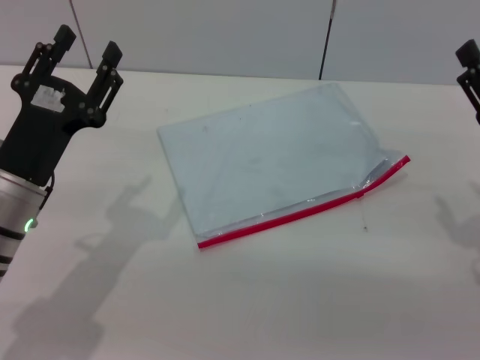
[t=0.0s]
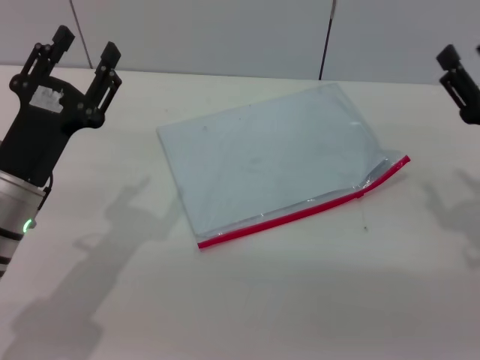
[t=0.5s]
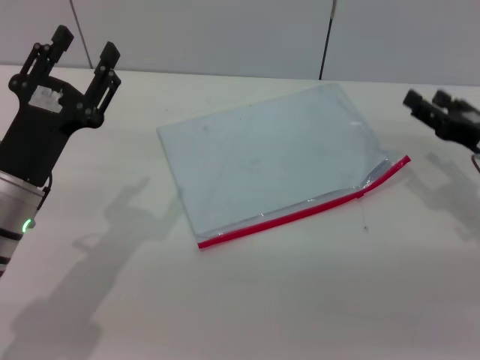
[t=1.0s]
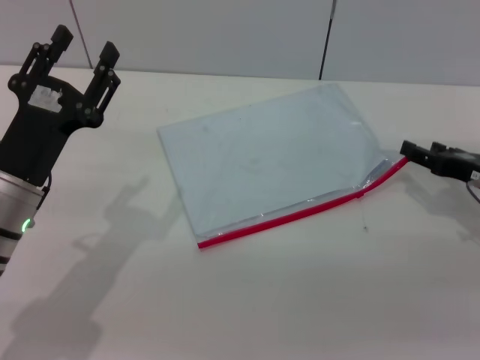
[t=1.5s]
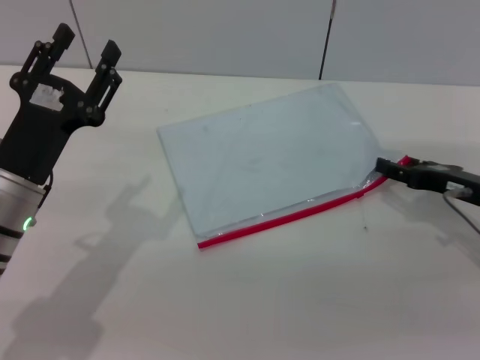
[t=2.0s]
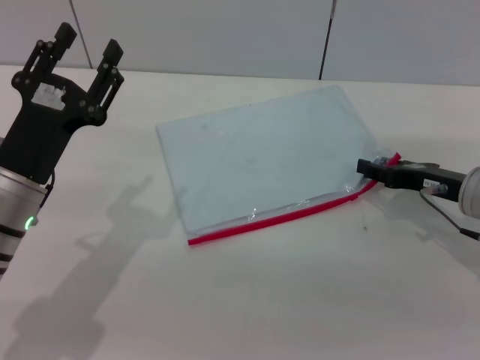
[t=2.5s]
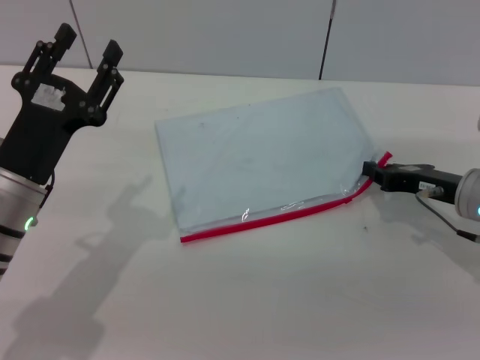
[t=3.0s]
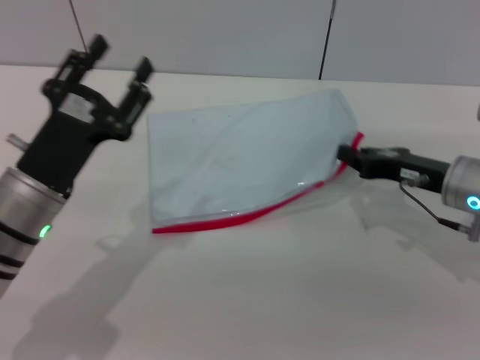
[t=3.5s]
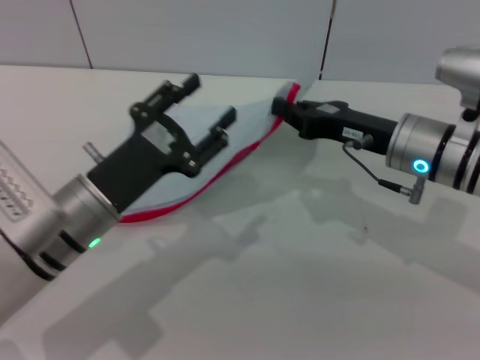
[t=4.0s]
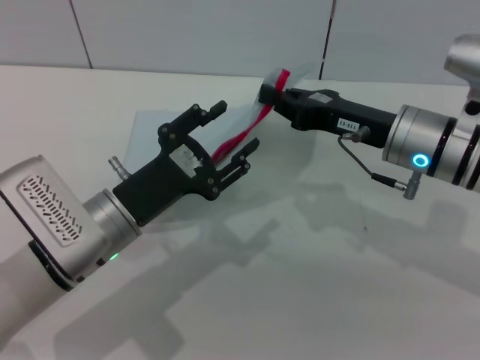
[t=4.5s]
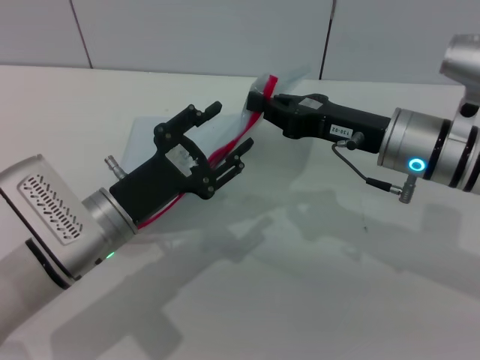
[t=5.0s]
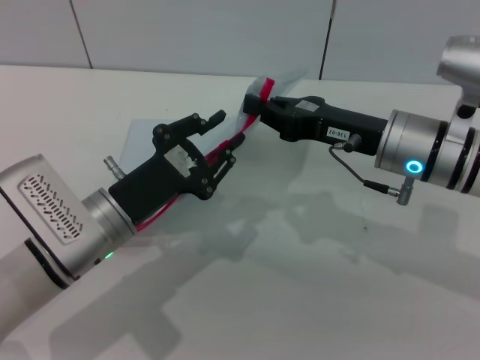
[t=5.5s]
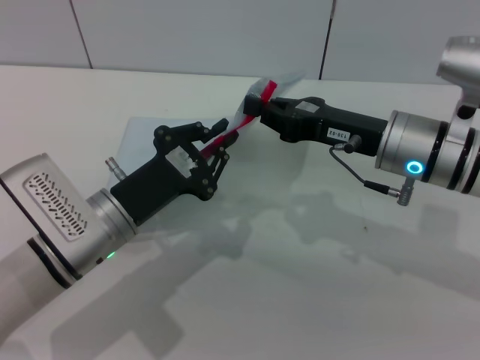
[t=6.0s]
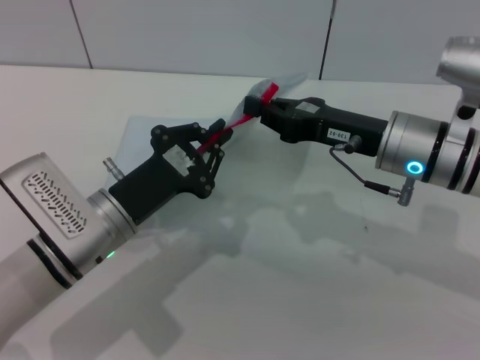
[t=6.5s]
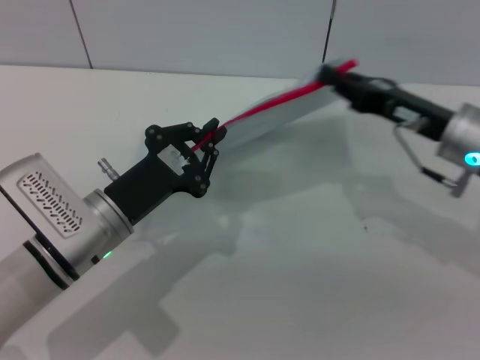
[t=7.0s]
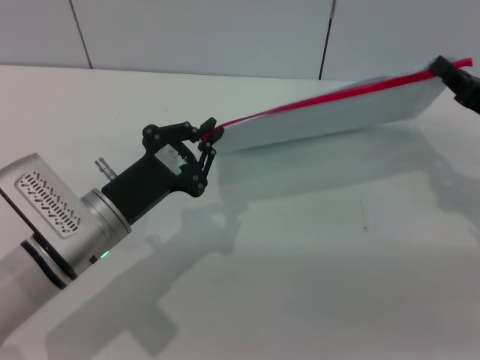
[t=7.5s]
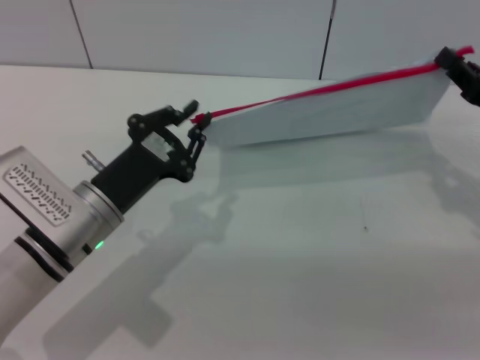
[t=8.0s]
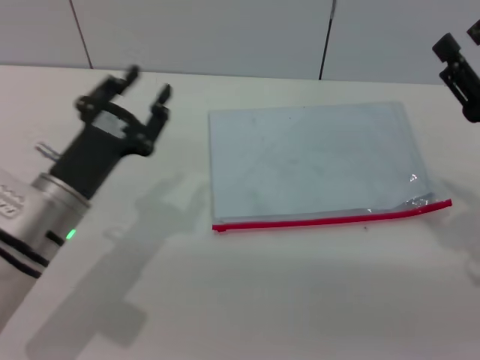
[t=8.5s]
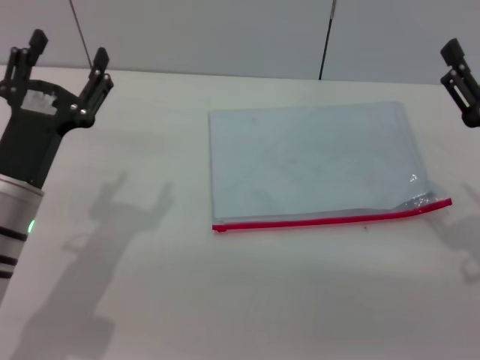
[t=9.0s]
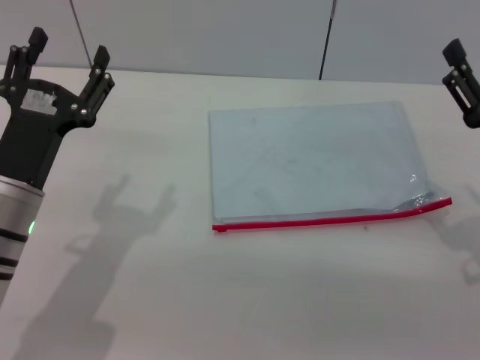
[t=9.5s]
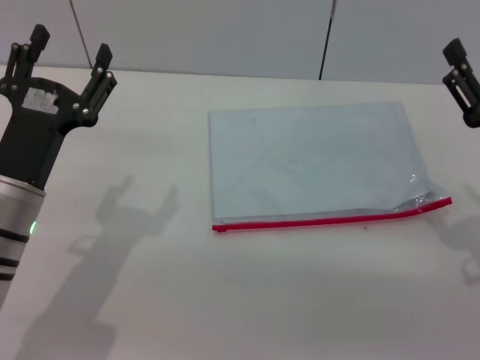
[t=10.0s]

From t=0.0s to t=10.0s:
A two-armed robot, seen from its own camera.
Step, from t=0.0s to t=4.0s: Pick up the transparent plastic bag with the right gripper.
From t=0.0s to t=2.0s: The right gripper is displaced forward by about 5 cm.
From t=2.0s to t=4.0s: The left gripper shifts by about 5 cm, while the right gripper goes approximately 10 cm to the left and upward, and closes.
From t=4.0s to t=6.0s: The left gripper closes.
From t=6.0s to t=8.0s: The right gripper goes some 15 cm to the right.
From t=8.0s to t=10.0s: The right gripper moves backward, approximately 5 cm, and opens up; the left gripper changes place by about 5 cm, and opens its fingers.
